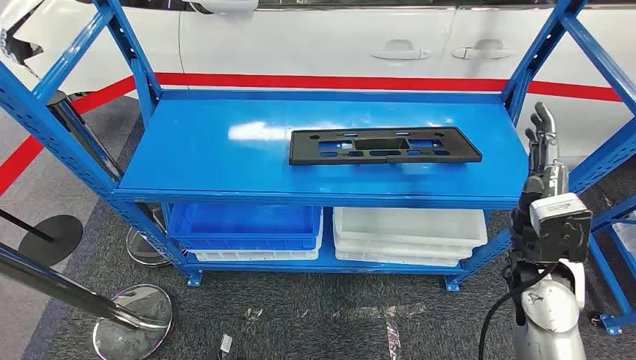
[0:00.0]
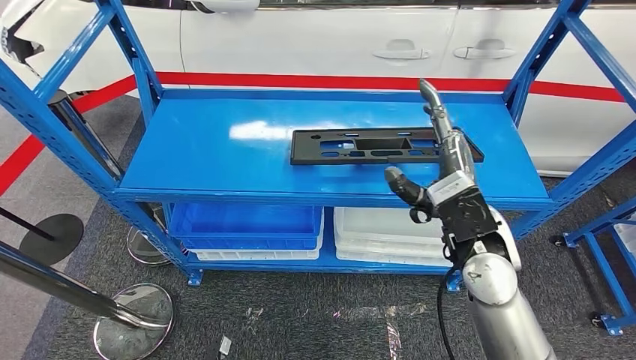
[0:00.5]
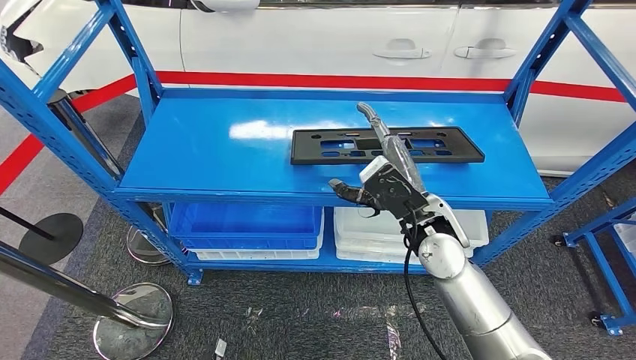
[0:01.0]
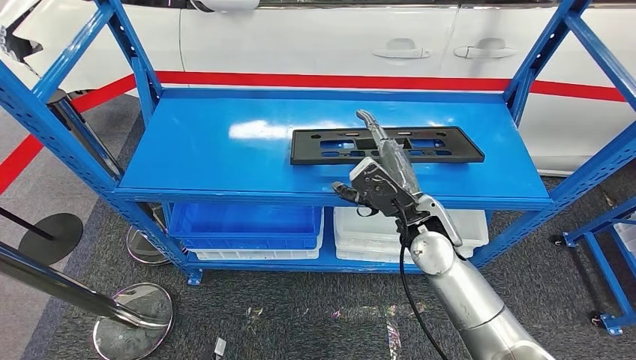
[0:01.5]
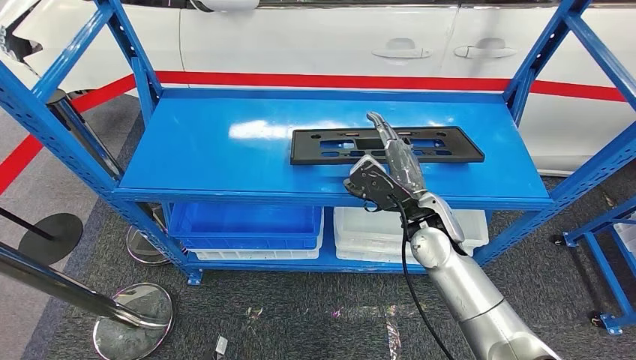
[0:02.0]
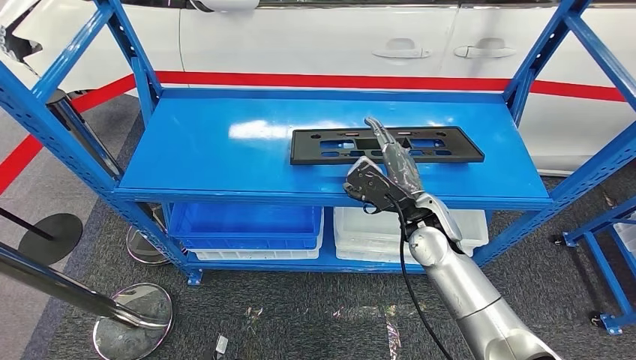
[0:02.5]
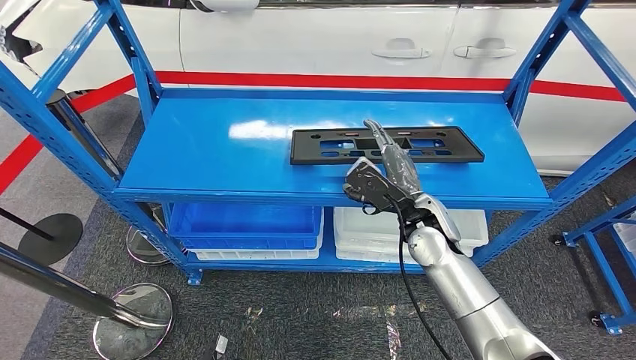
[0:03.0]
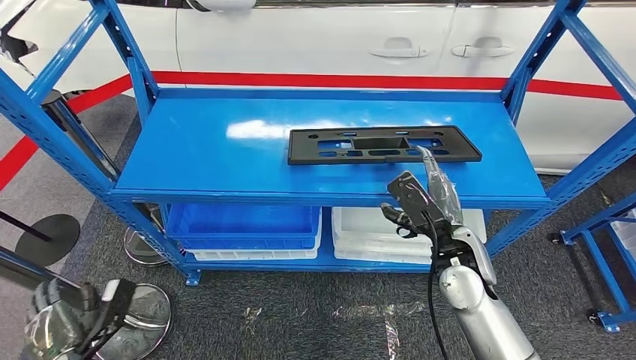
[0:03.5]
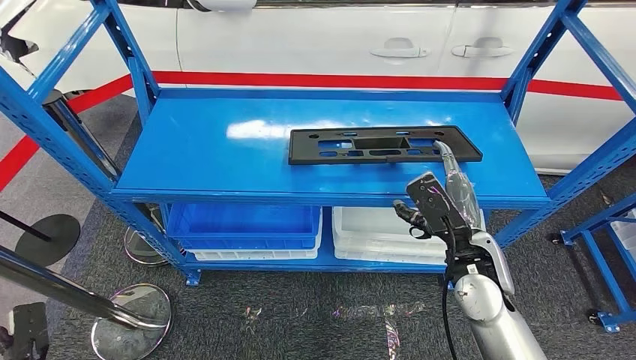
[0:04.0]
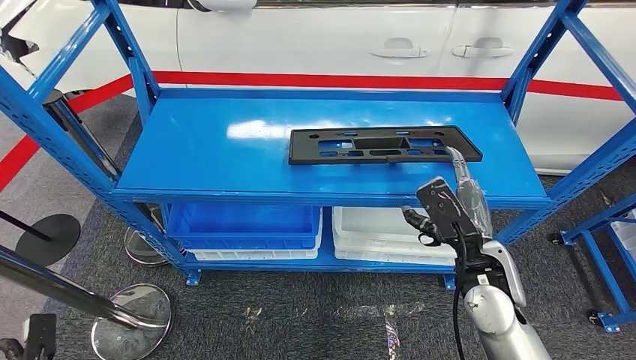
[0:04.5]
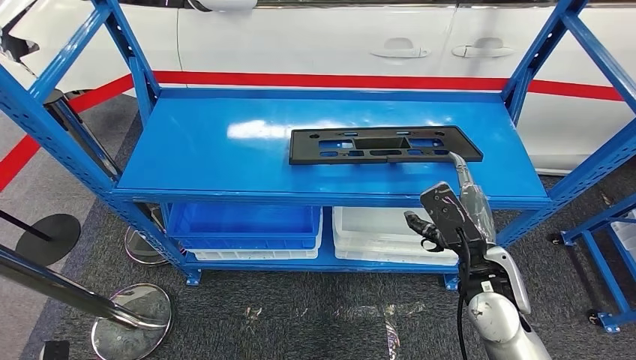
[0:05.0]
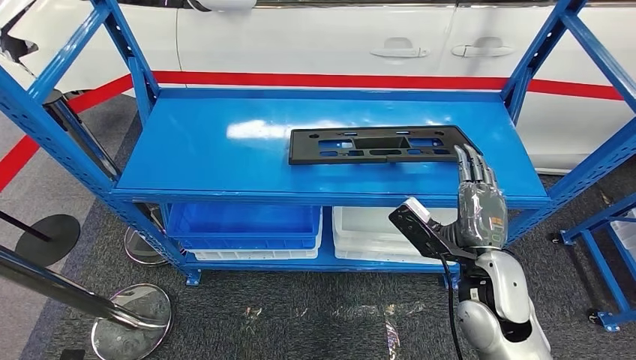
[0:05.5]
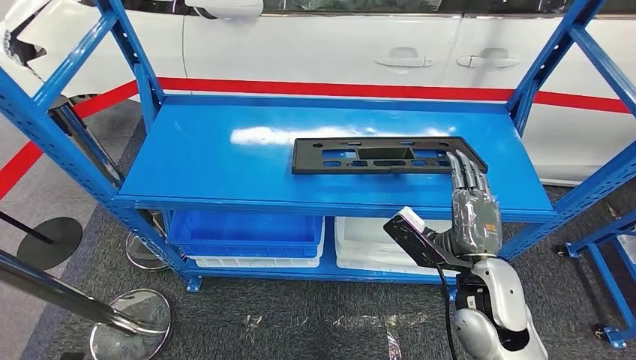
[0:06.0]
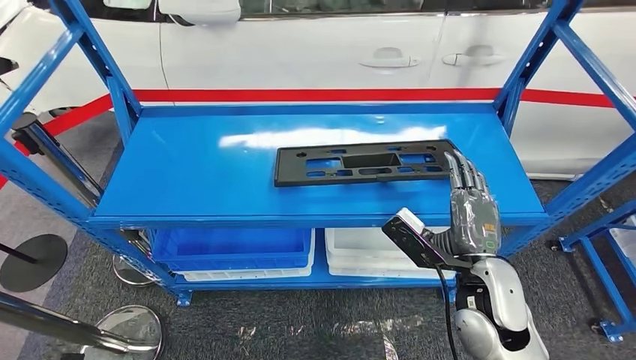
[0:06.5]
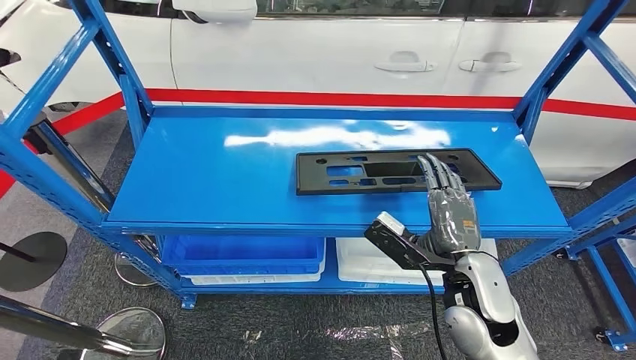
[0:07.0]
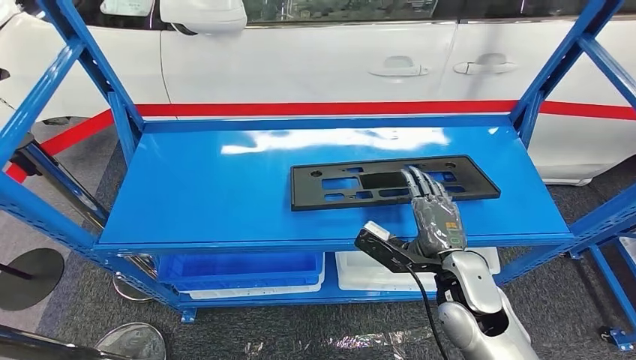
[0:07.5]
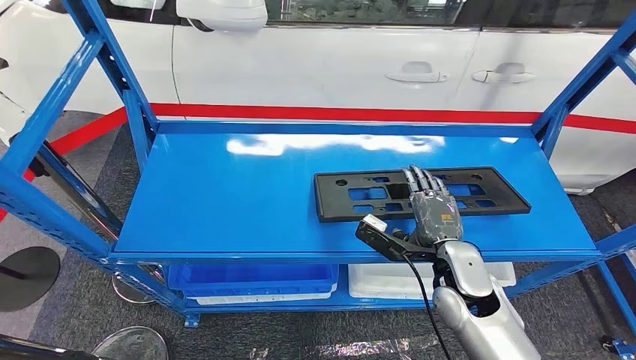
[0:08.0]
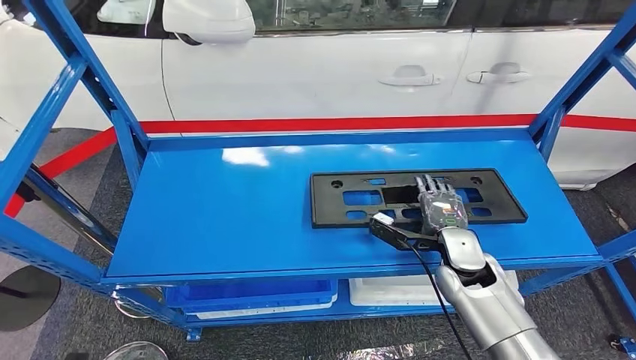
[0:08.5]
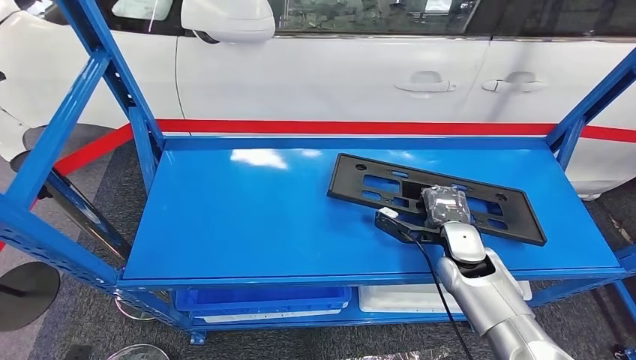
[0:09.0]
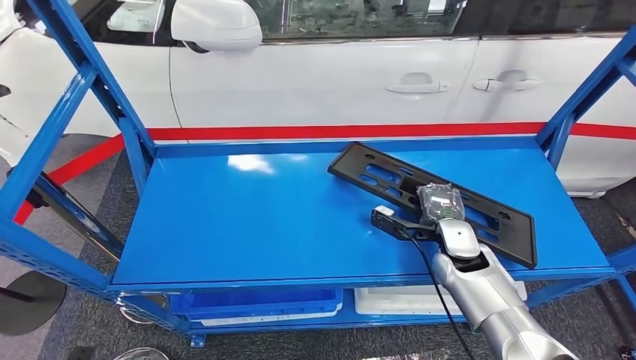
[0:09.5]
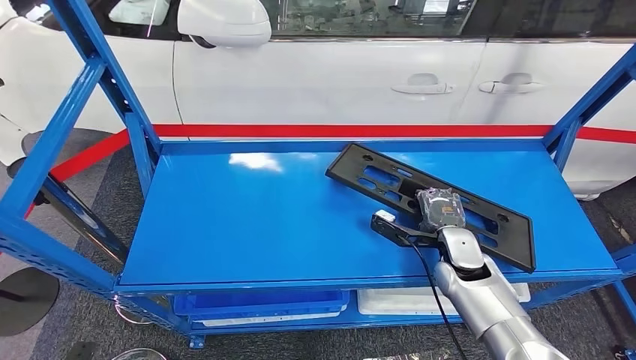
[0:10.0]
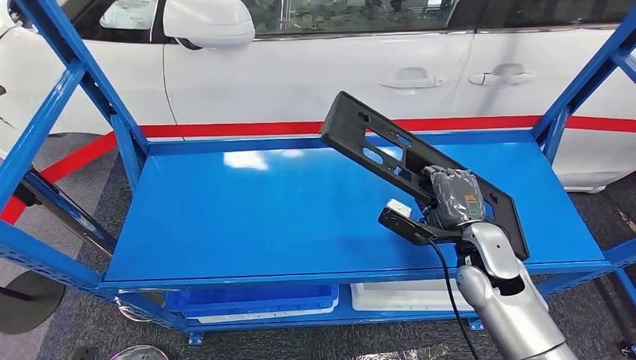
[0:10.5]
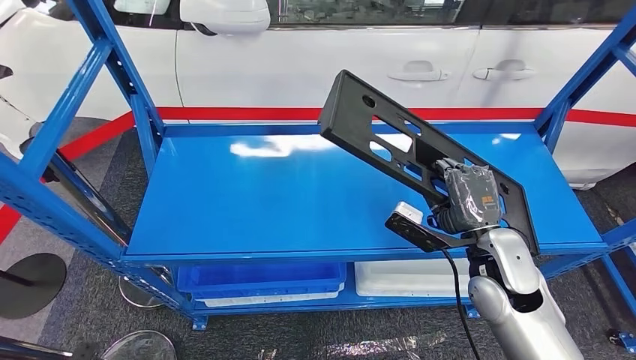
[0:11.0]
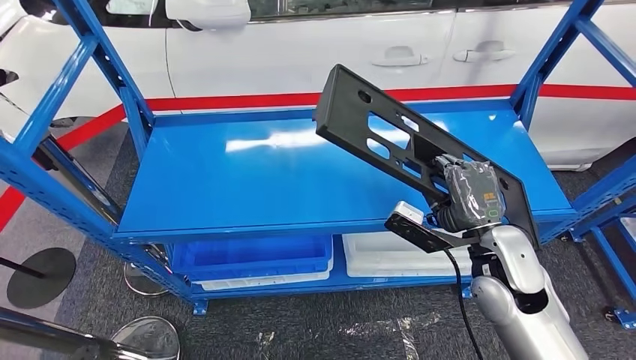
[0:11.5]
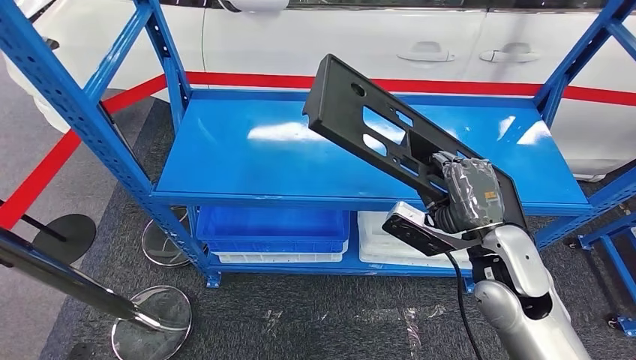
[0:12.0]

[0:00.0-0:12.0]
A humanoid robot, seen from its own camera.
0:02.0 to 0:04.0: The right hand shifts approximately 10 cm backward and to the right; the left hand heads to the left, covering some 25 cm.

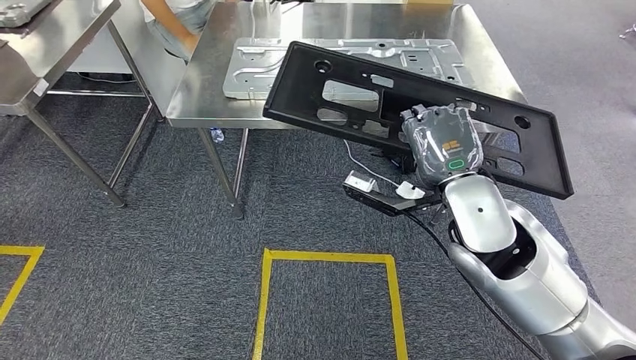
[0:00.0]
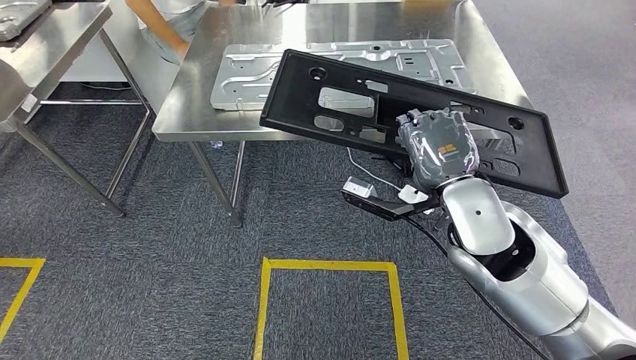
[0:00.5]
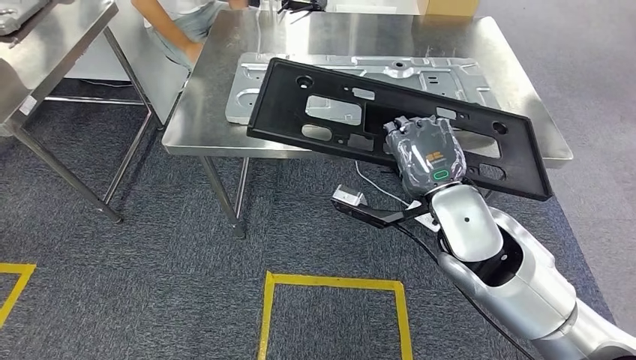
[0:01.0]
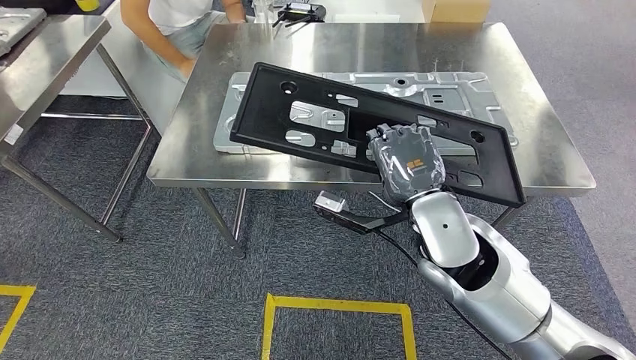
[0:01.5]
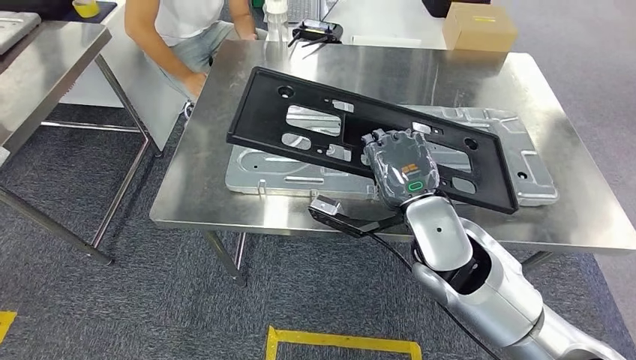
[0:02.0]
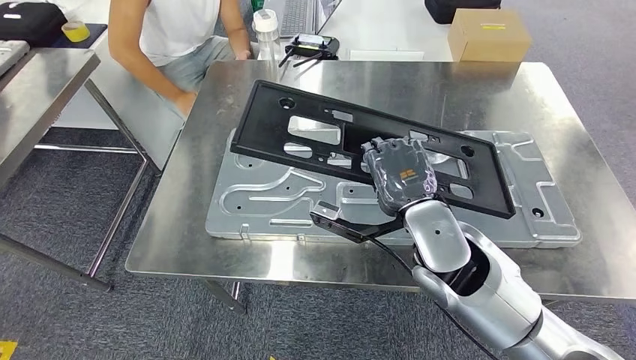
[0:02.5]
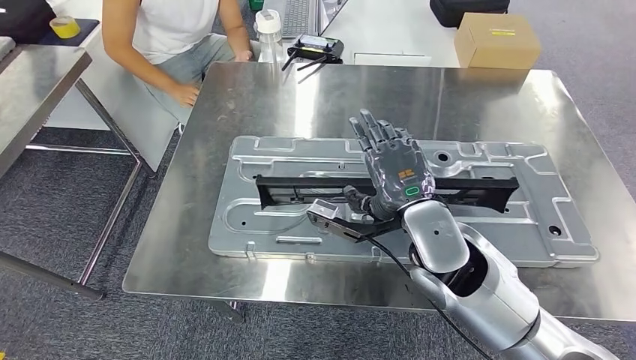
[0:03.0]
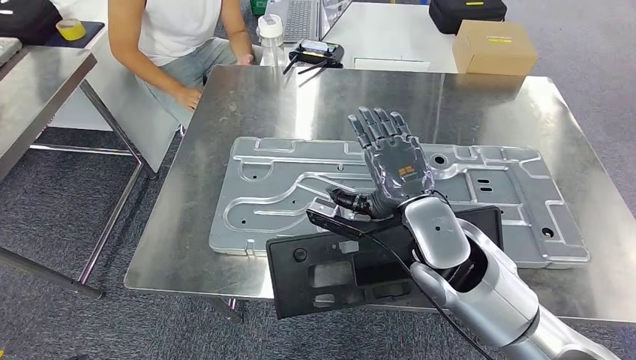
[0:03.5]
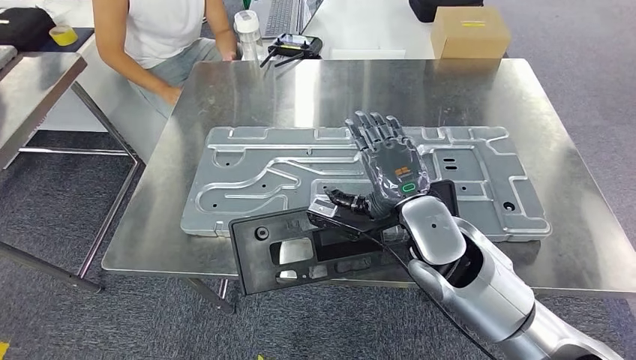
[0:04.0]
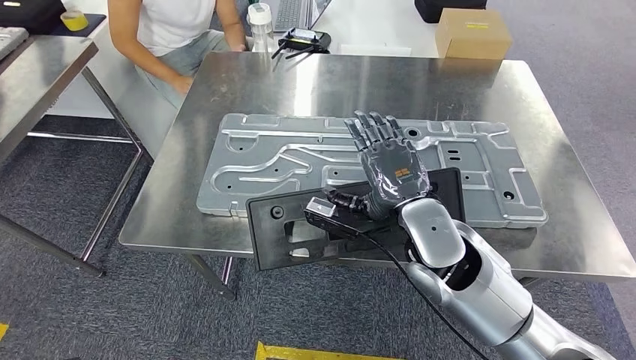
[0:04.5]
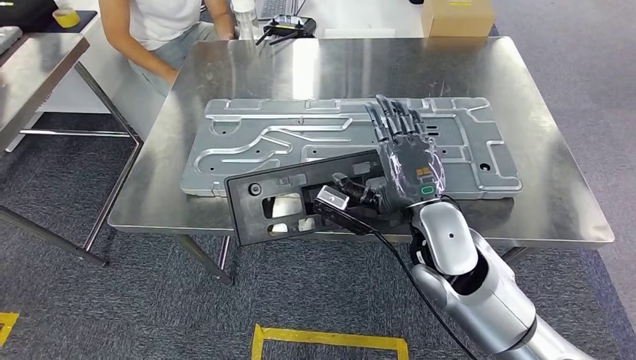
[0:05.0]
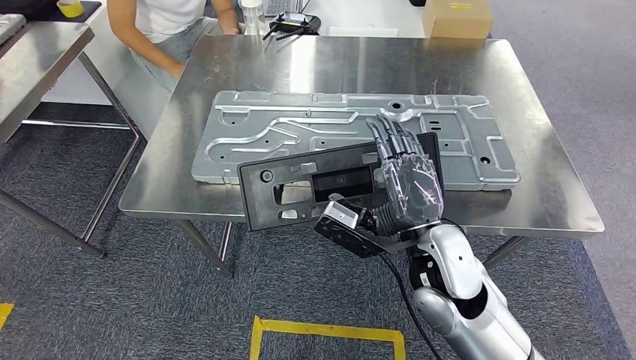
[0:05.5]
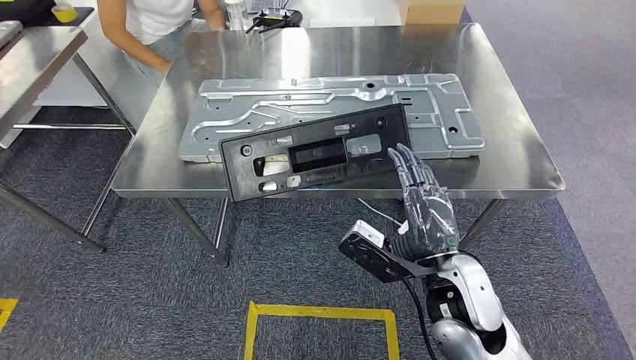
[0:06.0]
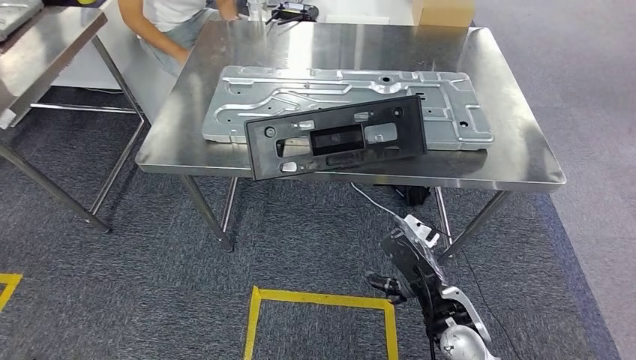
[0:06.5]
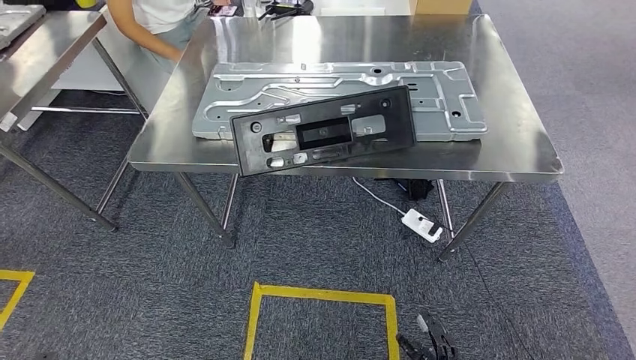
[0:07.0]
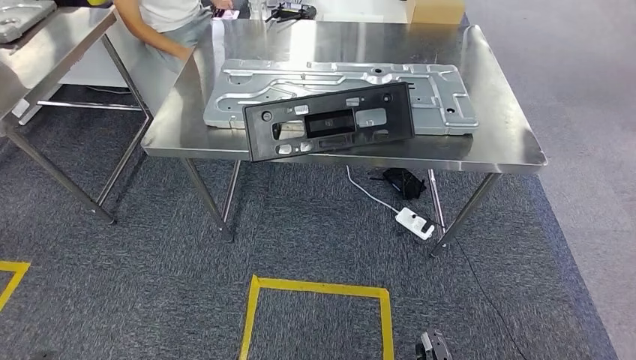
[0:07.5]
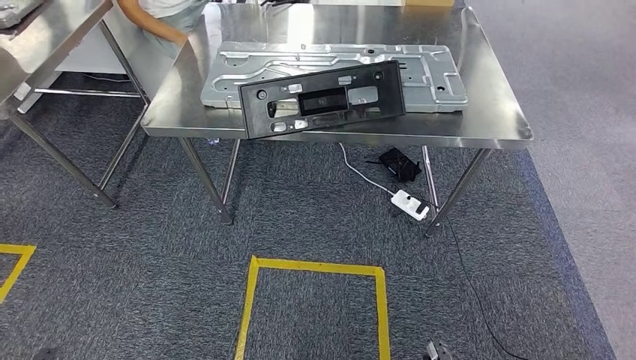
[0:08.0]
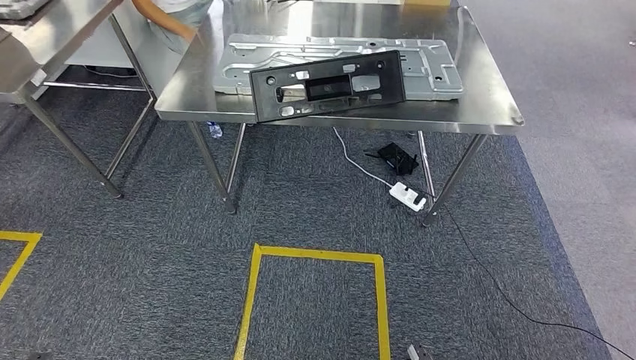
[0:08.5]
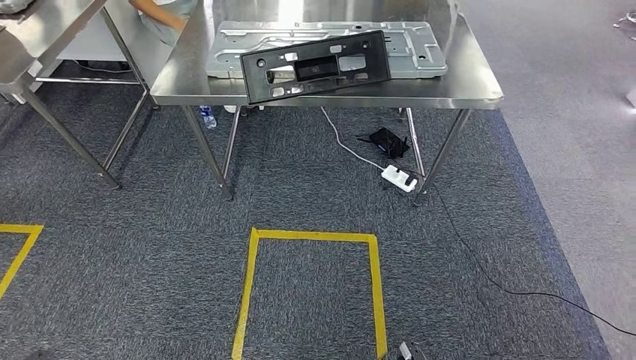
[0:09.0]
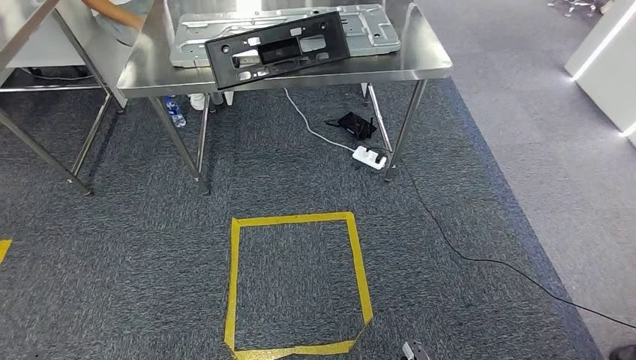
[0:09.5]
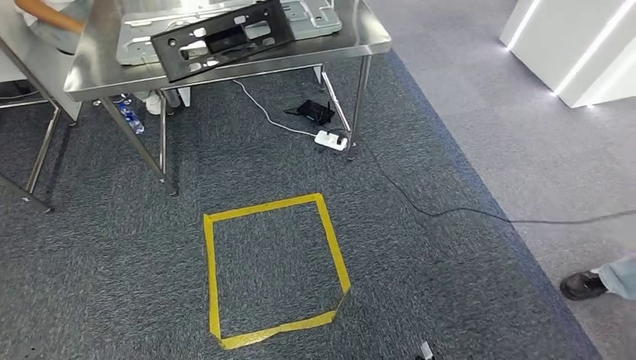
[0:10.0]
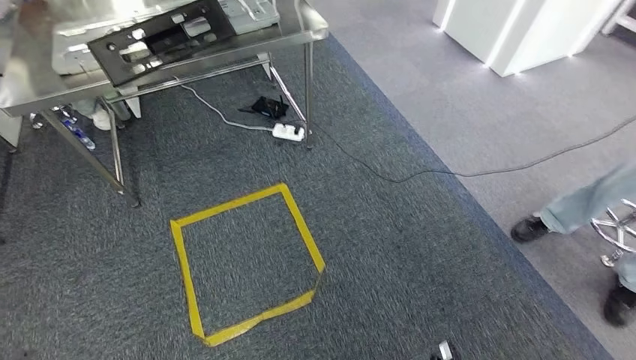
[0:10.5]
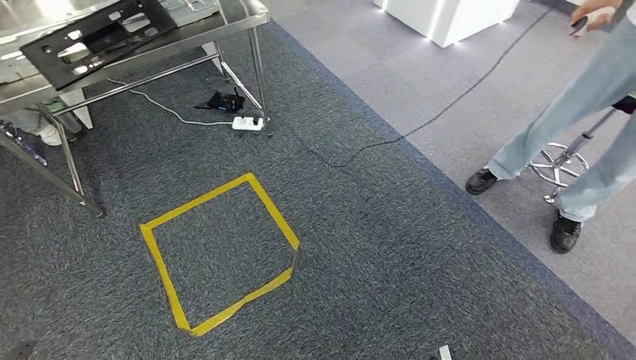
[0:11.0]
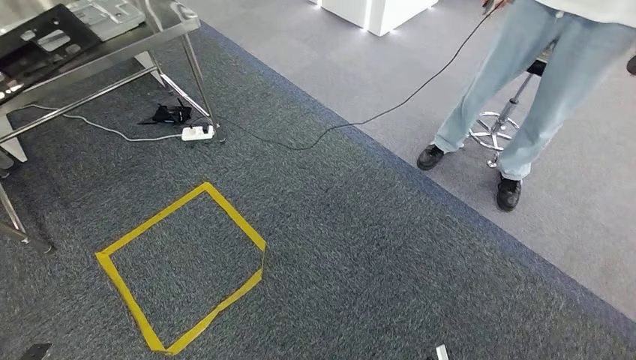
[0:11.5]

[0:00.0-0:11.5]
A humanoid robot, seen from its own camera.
Step, 0:02.5 to 0:08.5: Insert the large material into the corresponding slot on the workbench.
